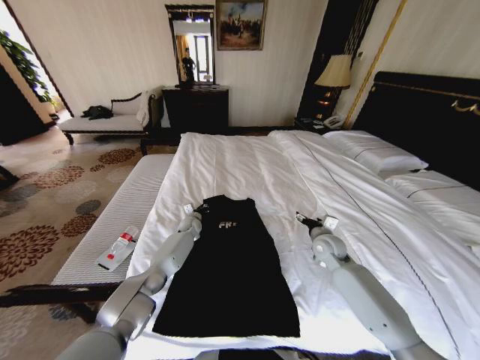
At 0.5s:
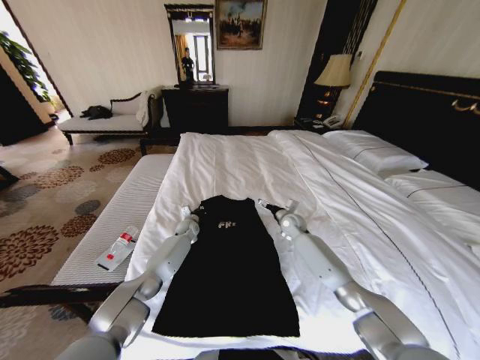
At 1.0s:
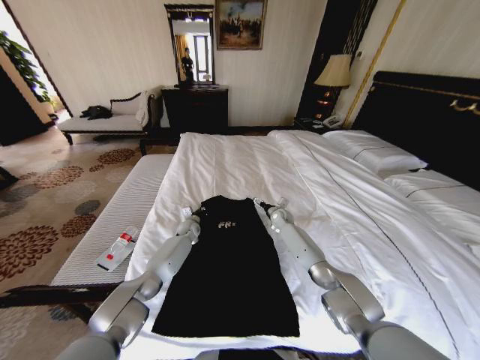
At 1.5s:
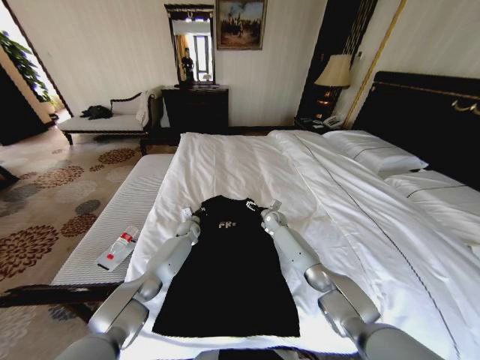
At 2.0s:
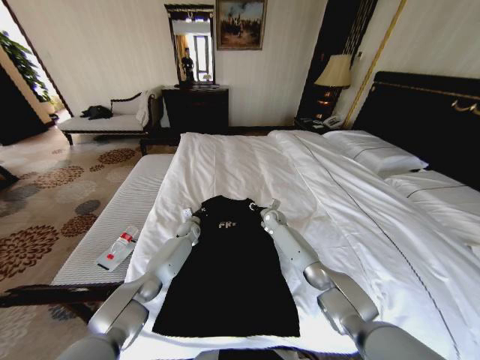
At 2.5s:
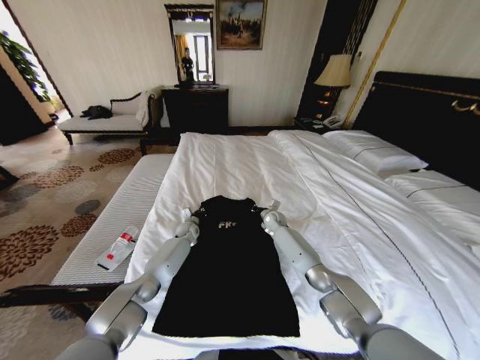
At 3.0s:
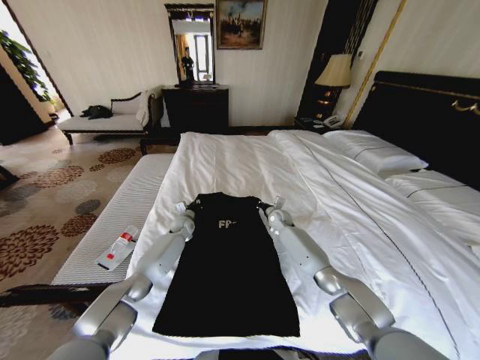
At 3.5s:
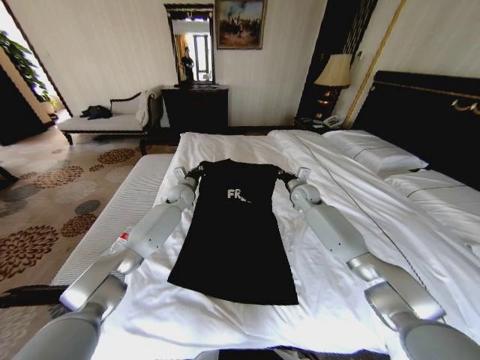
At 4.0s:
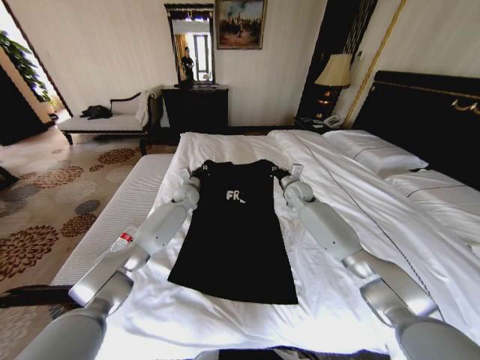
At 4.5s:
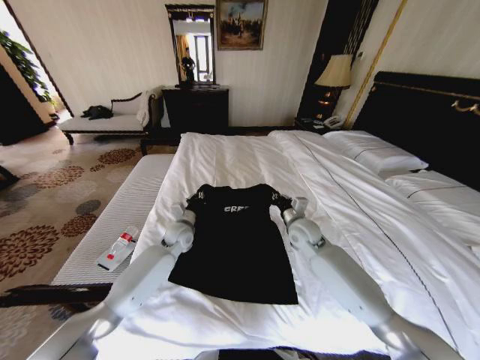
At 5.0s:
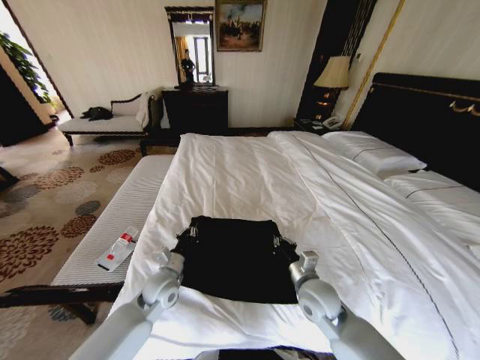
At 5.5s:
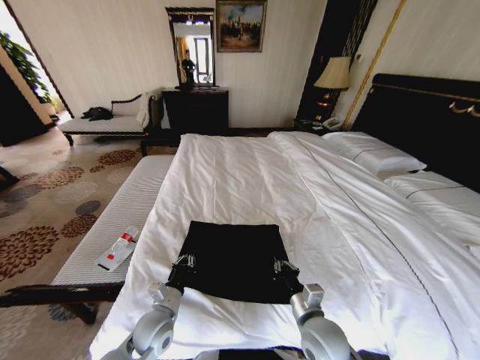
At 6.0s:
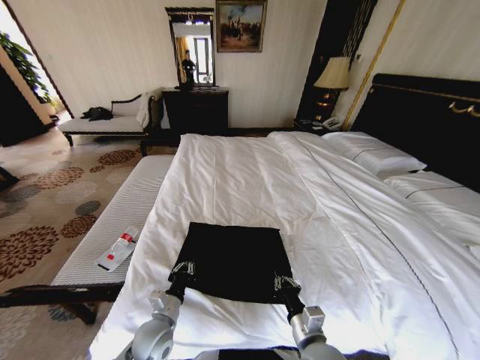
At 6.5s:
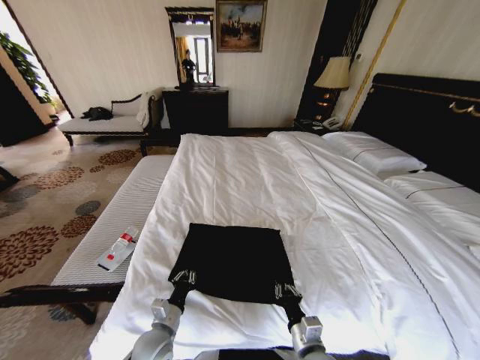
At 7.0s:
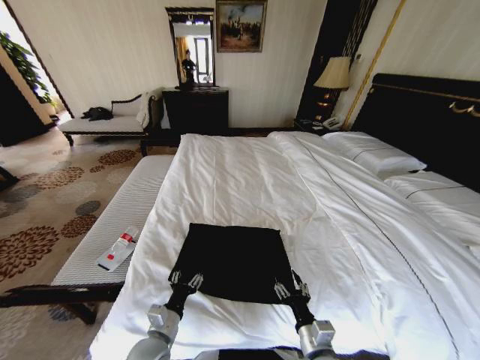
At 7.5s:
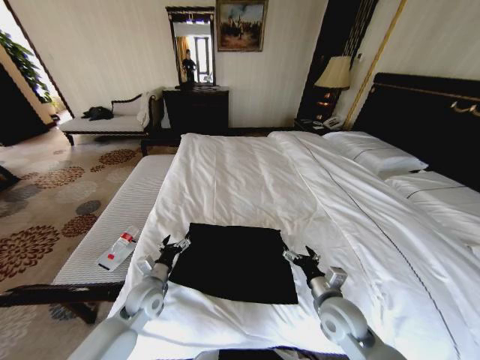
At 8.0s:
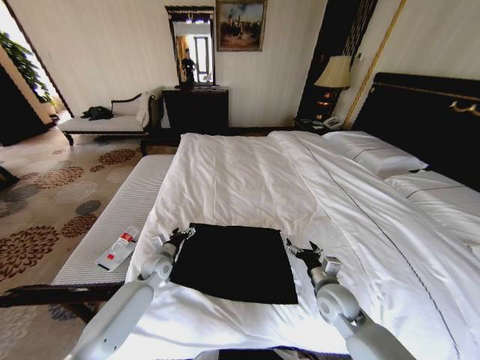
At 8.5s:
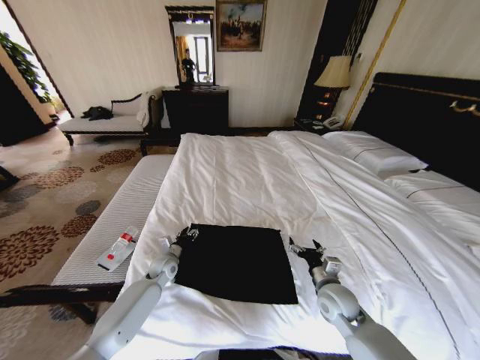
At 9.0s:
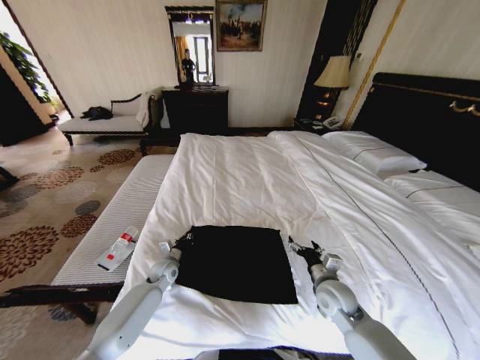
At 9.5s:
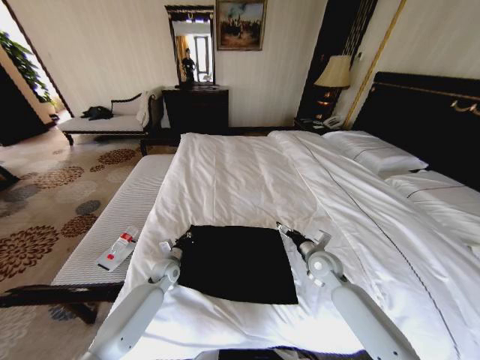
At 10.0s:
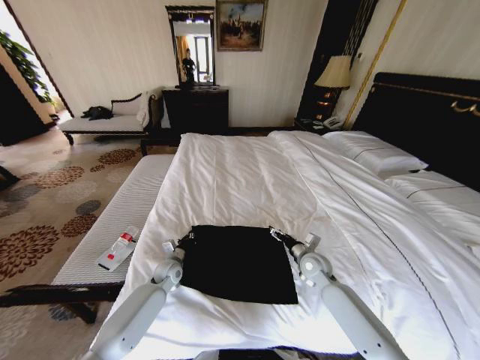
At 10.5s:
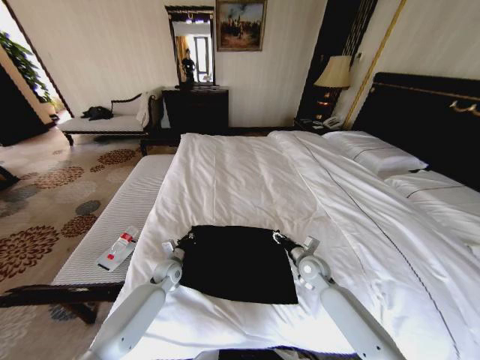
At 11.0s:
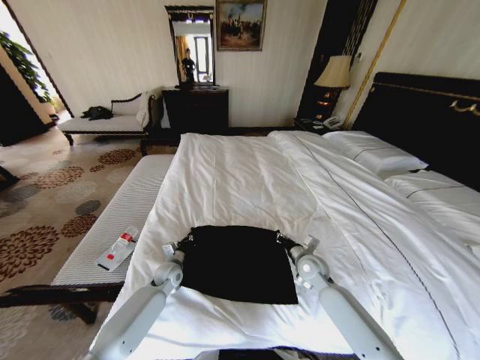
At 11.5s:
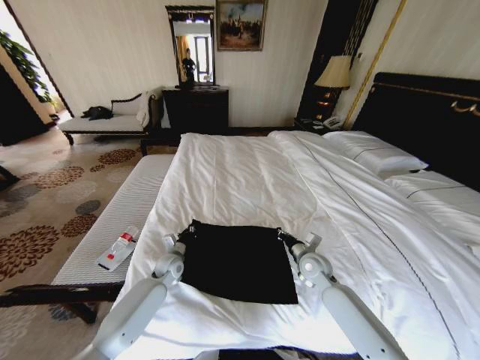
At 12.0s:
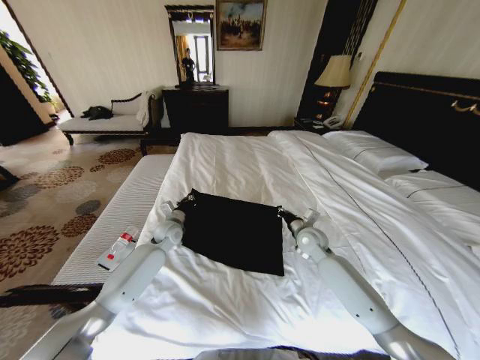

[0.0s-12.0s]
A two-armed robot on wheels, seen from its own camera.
Task of the whole recording: Fold the clothes on the bed.
0.0s to 2.0s: The right gripper moves forward and to the left, about 20 cm, and closes its fingers.
2.0s to 4.0s: The grippers both shift upward by roughly 15 cm. The right gripper closes its fingers.
4.0s to 6.0s: Both grippers travel together backward, roughly 40 cm.
6.0s to 8.0s: The right gripper moves forward and to the right, about 15 cm, and opens up; the left gripper travels forward by approximately 20 cm, and opens up.
8.0s to 10.0s: The left gripper ends up about 5 cm from where it was, and closes, while the right gripper goes some 10 cm forward.
10.0s to 12.0s: The right gripper shifts some 10 cm upward and forward, and closes. Meanwhile the left gripper heads upward and forward, covering approximately 15 cm.

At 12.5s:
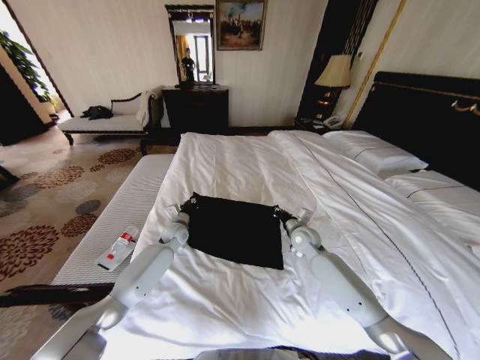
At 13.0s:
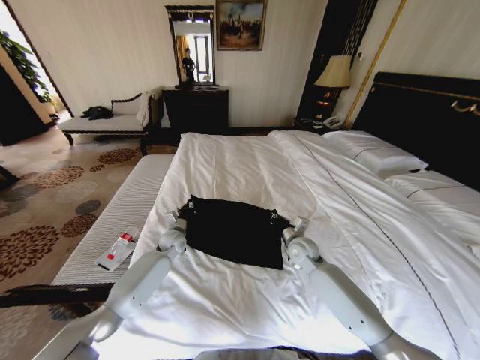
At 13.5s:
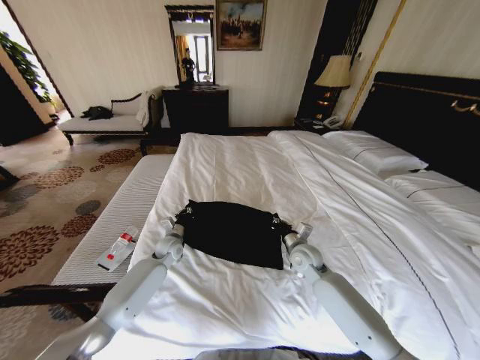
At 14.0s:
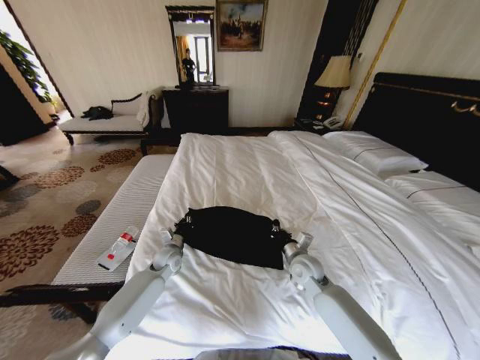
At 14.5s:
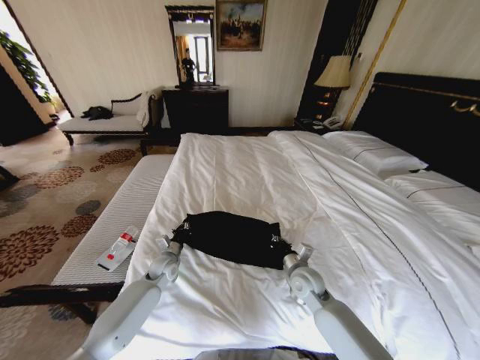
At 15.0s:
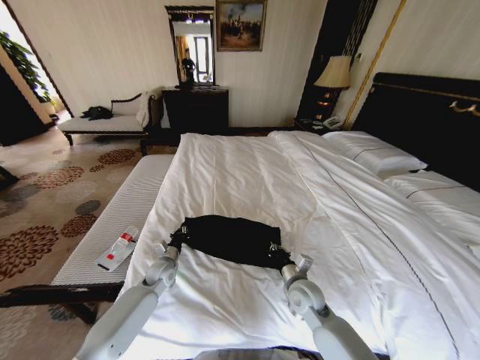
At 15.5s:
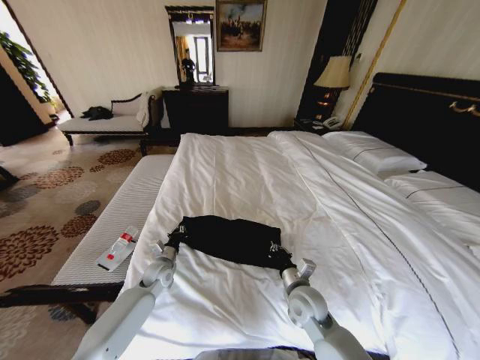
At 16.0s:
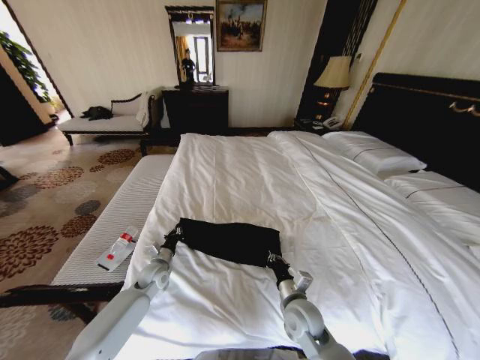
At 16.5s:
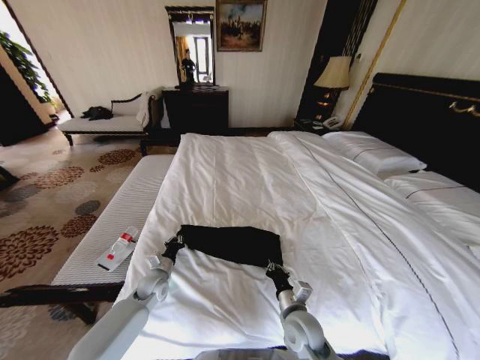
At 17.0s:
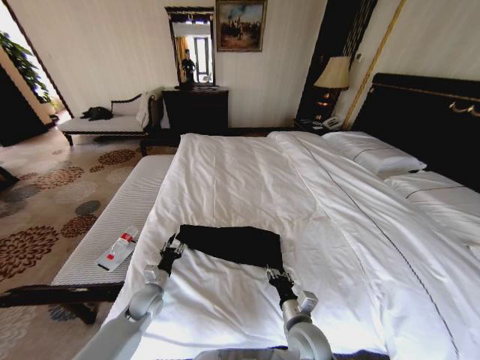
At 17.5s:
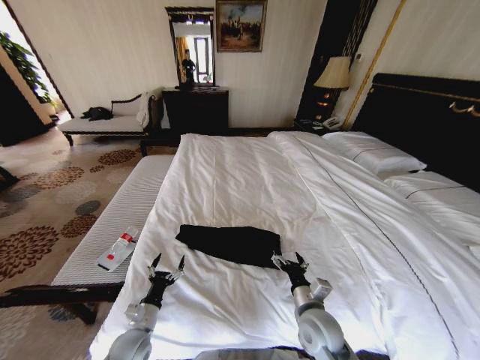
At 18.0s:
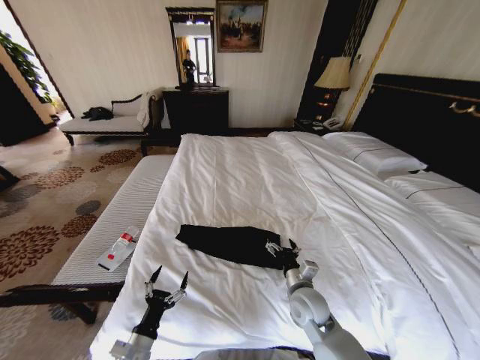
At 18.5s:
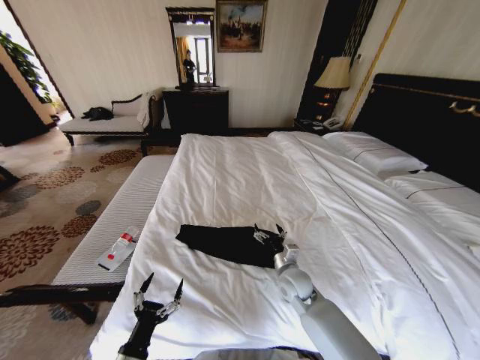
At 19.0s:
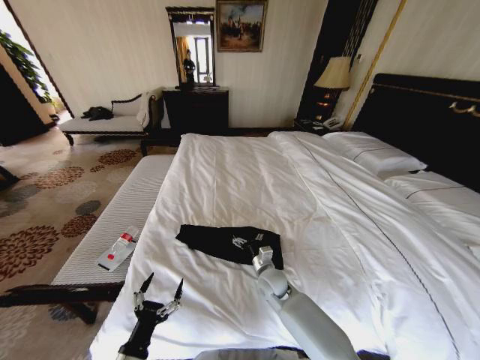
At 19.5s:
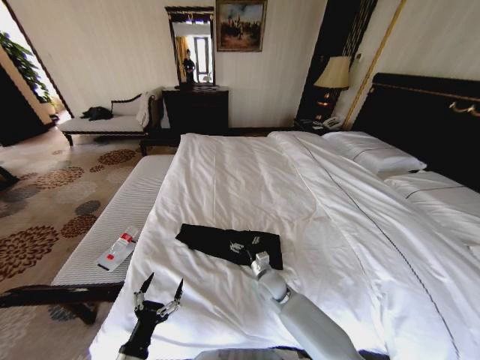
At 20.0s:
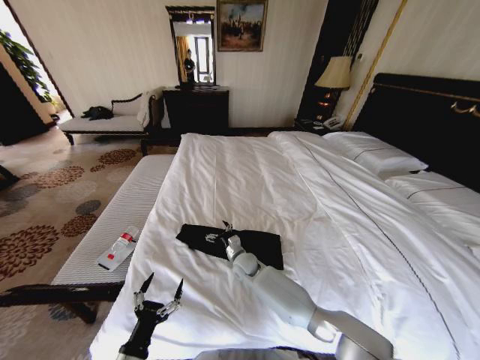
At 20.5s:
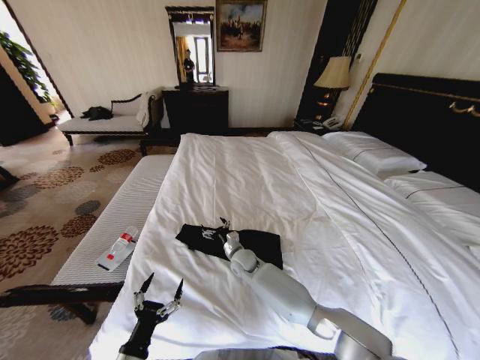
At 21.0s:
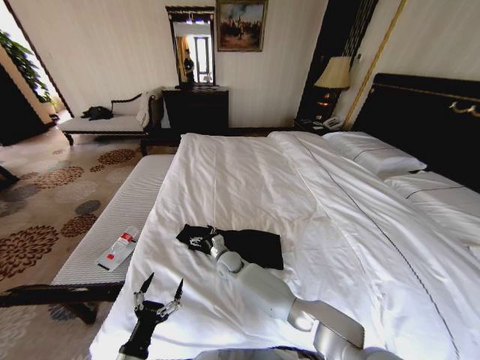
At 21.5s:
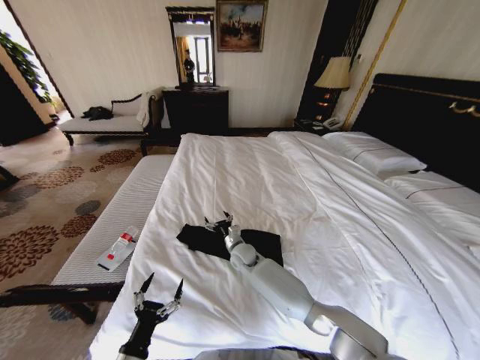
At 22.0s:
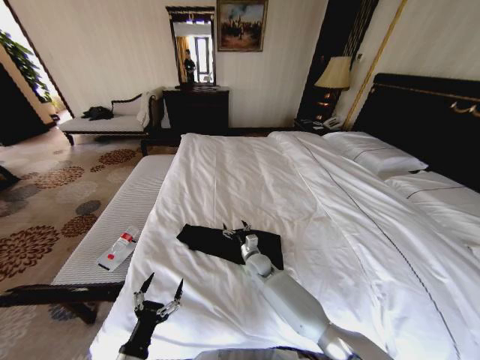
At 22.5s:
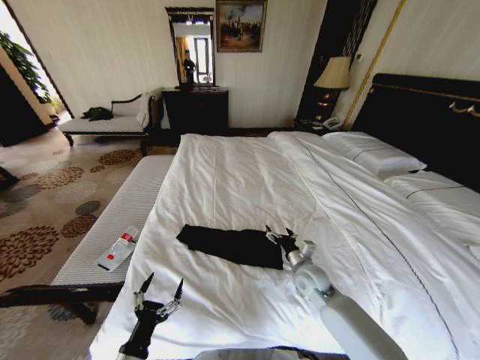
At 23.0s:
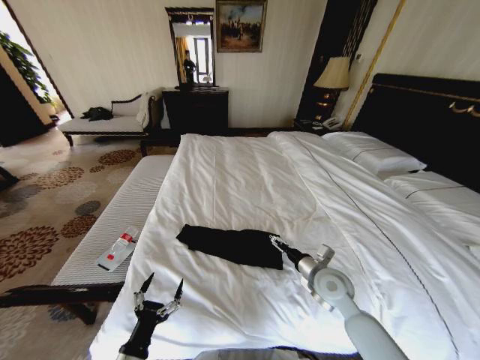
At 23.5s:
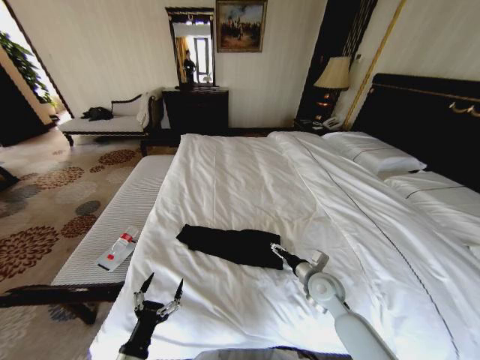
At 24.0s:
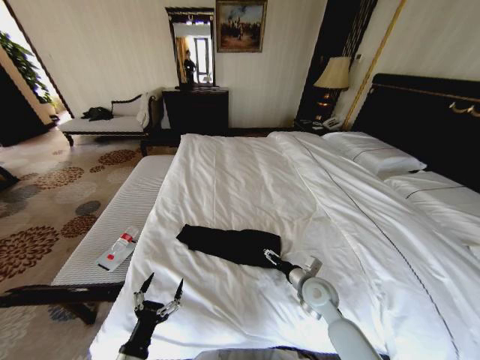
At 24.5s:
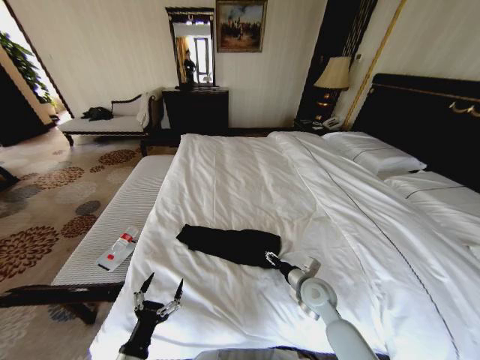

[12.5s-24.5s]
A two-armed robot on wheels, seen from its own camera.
Task of the whole recording: Fold the clothes on the bed.
12.5s to 14.5s: The right gripper travels backward by roughly 15 cm, while the left gripper moves backward and downward, approximately 10 cm.
14.5s to 16.5s: The left gripper goes roughly 5 cm backward. The right gripper goes some 10 cm backward.
16.5s to 18.5s: The right gripper goes some 10 cm forward, and opens, while the left gripper is displaced backward by some 30 cm, and opens its fingers.
18.5s to 20.5s: The right gripper goes roughly 20 cm to the left and forward.
20.5s to 22.5s: The right gripper heads to the right and backward, covering some 20 cm.

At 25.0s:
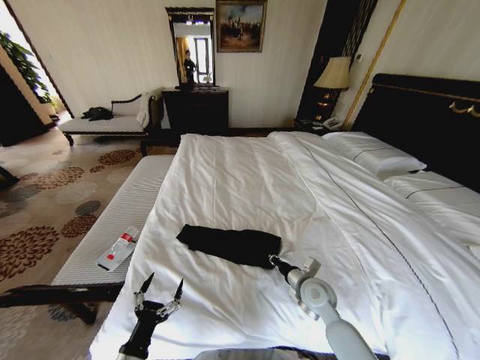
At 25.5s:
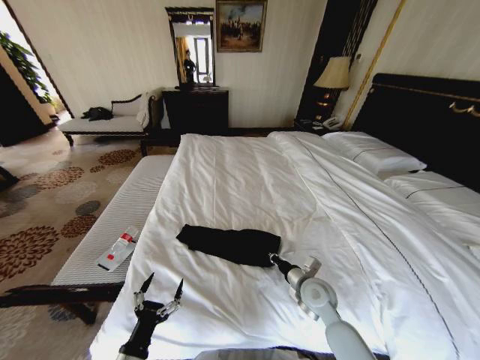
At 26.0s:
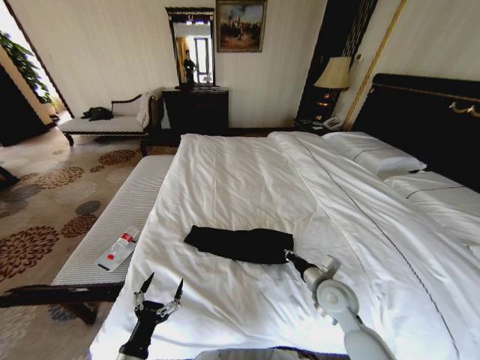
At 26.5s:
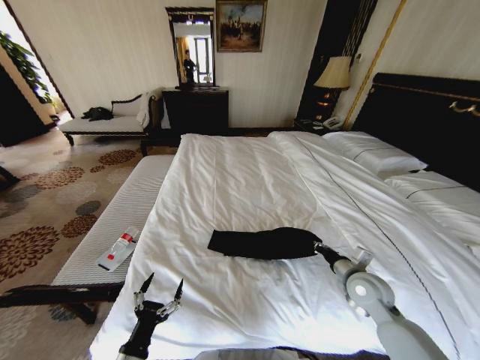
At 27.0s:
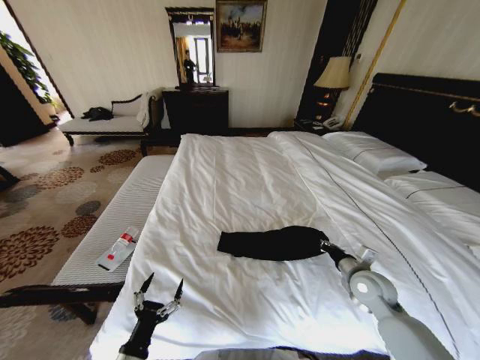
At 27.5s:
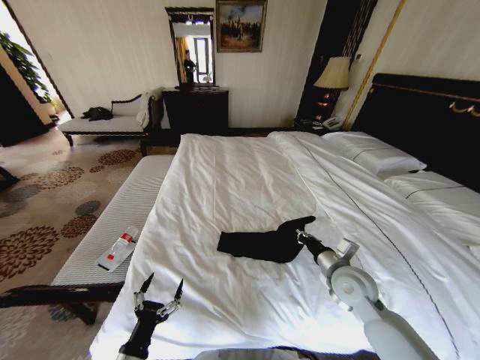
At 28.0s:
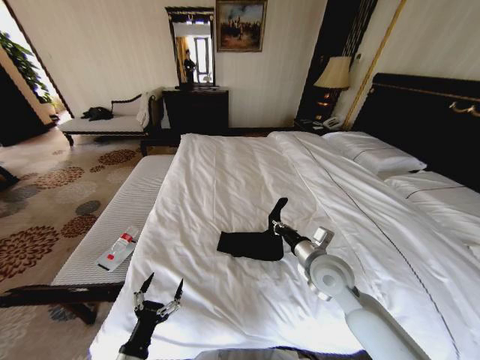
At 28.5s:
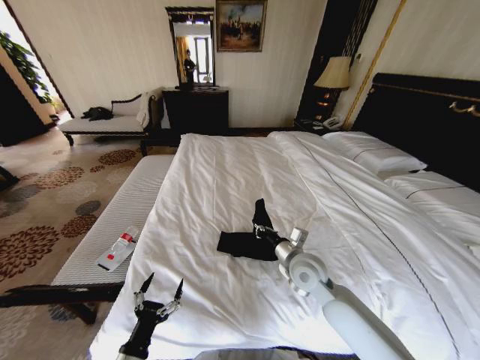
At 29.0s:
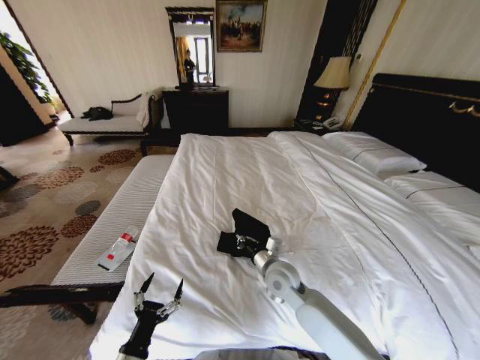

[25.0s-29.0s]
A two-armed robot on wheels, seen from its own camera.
Task of the whole recording: Fold the clothes on the bed.
25.0s to 27.0s: The right gripper goes some 15 cm to the right.
27.0s to 29.0s: The right gripper shifts about 25 cm to the left.
